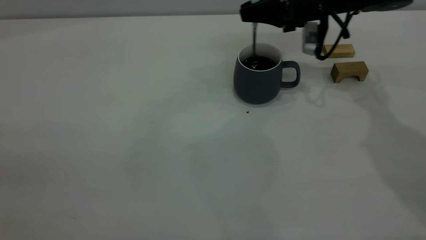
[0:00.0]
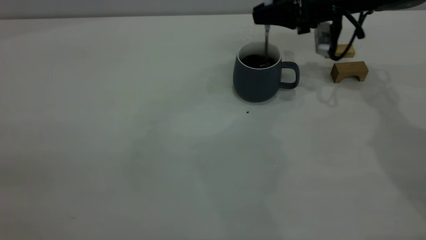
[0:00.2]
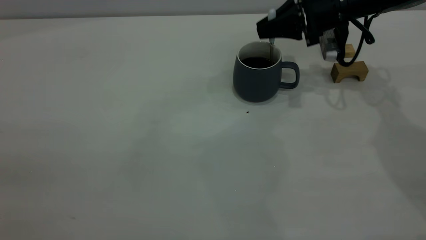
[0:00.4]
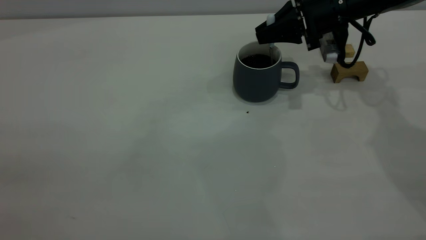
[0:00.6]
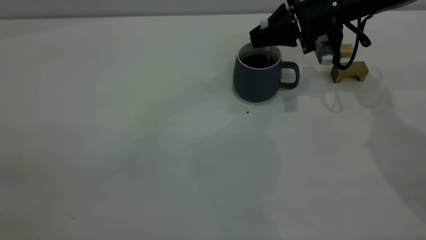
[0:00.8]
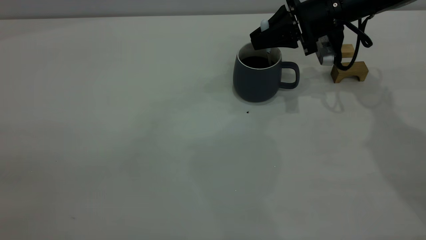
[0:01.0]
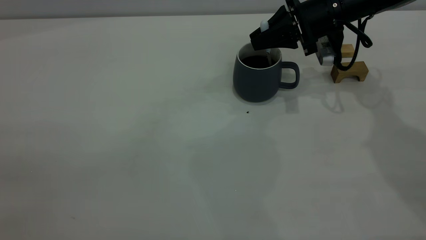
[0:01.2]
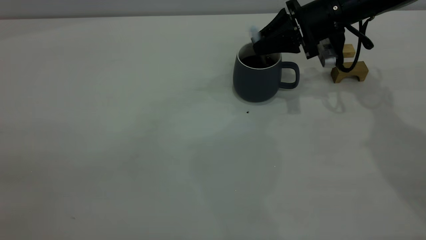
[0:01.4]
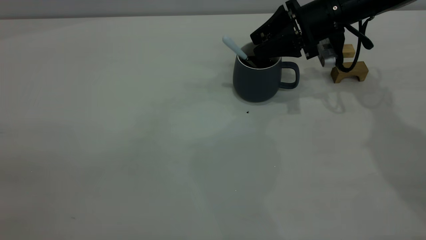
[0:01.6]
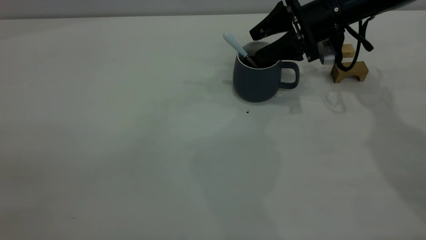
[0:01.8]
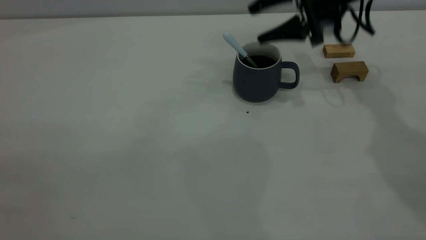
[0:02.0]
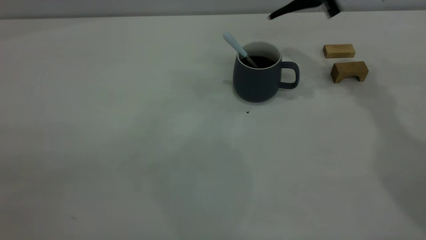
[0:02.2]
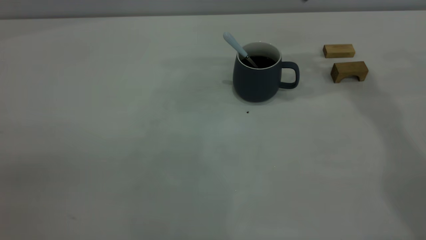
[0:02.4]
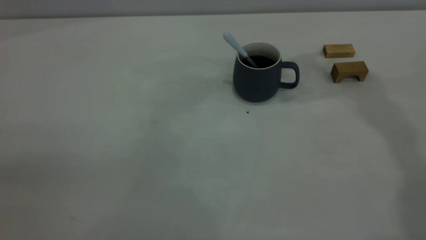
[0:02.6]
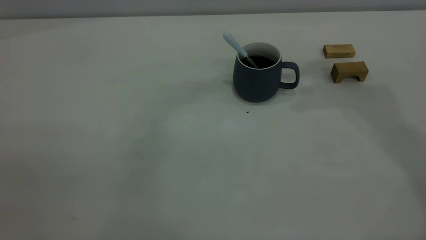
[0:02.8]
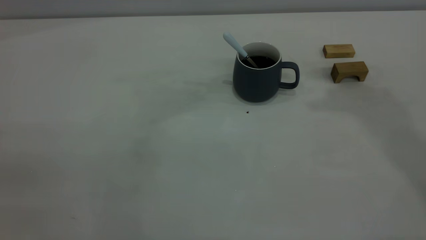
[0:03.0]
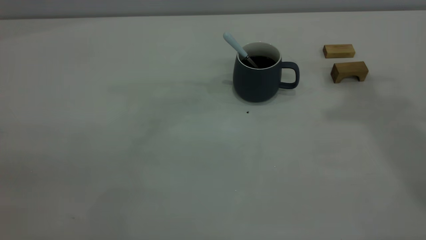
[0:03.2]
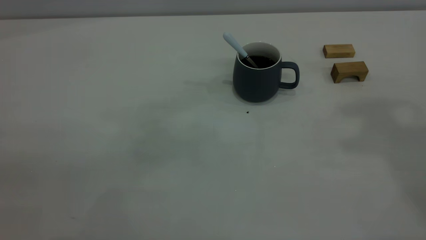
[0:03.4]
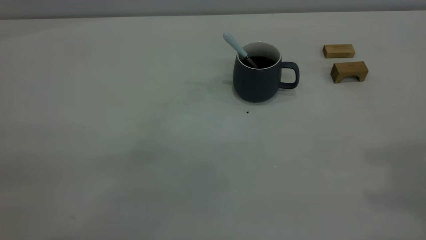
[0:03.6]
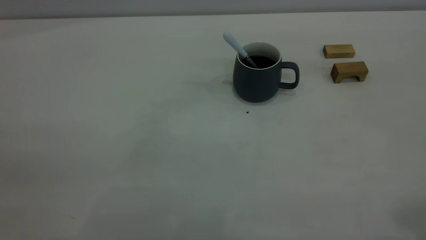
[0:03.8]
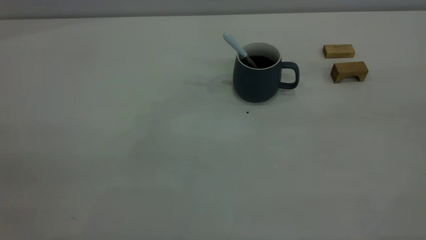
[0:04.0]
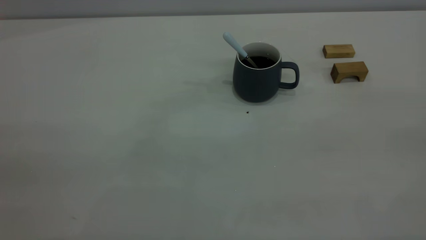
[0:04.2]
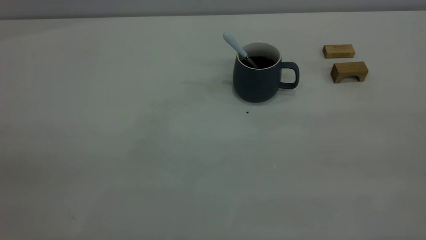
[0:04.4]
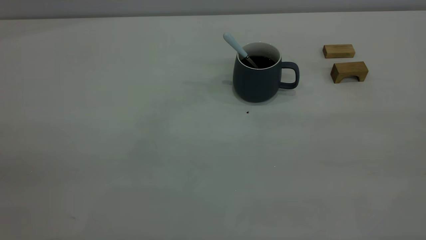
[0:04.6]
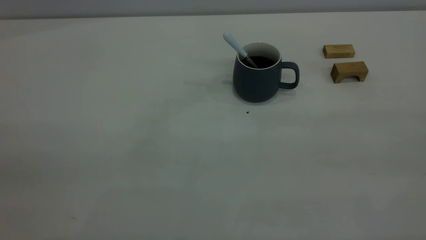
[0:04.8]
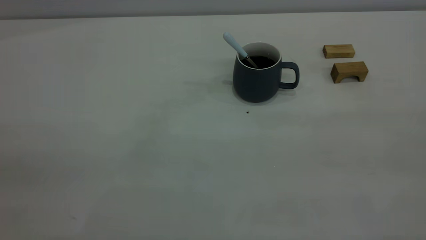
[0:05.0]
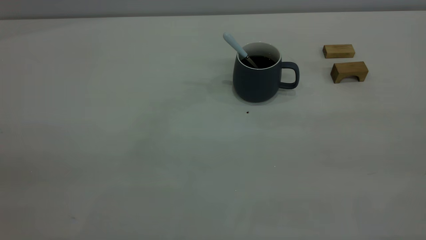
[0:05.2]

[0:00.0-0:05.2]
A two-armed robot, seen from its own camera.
Step, 0:00.0 to 0:02.0: Stir the coffee in the cup.
0:00.0 to 0:01.8: The right gripper opens its fingers.
0:01.8 to 0:03.4: The right gripper goes some 40 cm upward and backward, and closes its fingers.
